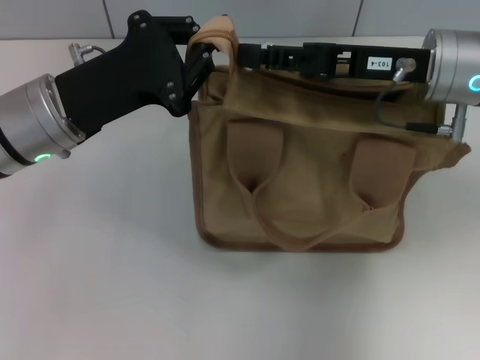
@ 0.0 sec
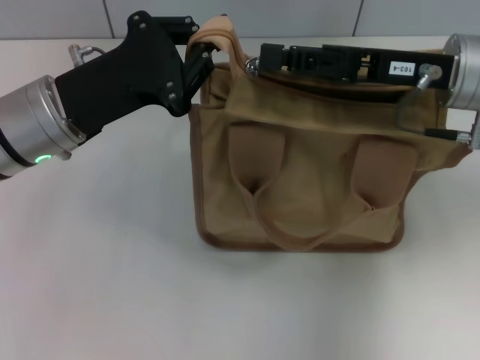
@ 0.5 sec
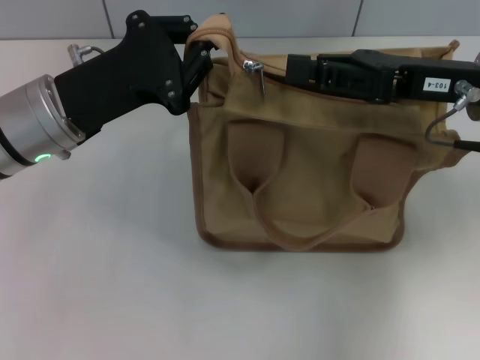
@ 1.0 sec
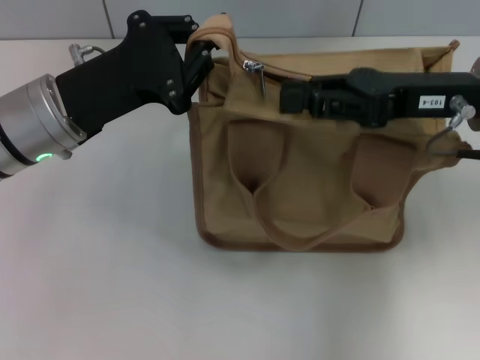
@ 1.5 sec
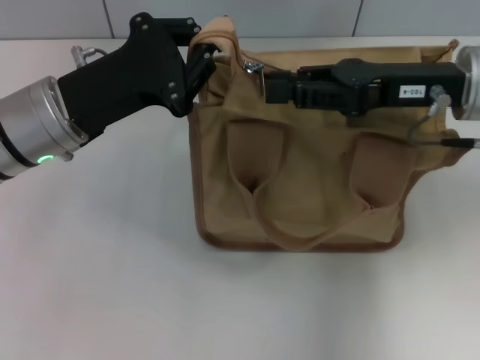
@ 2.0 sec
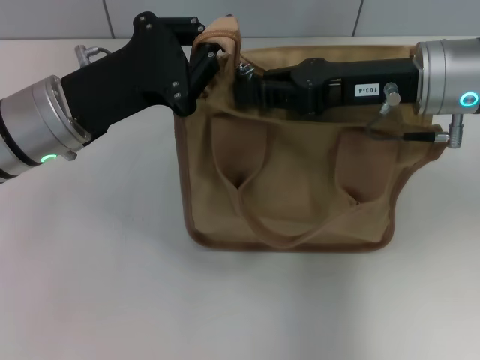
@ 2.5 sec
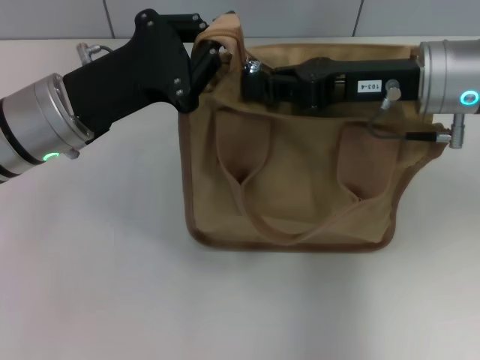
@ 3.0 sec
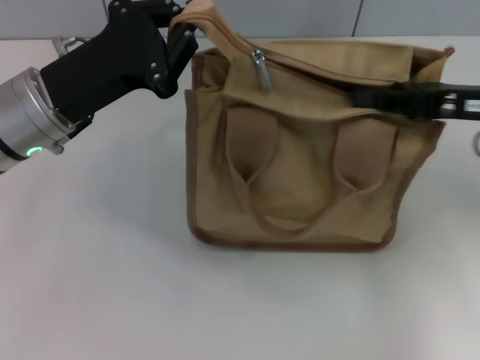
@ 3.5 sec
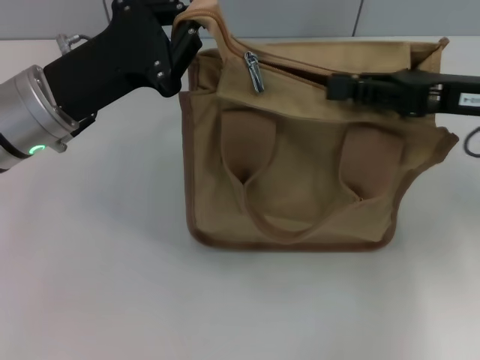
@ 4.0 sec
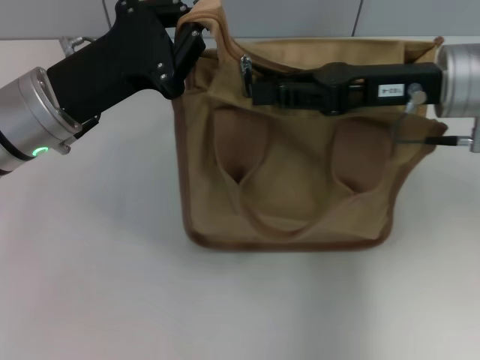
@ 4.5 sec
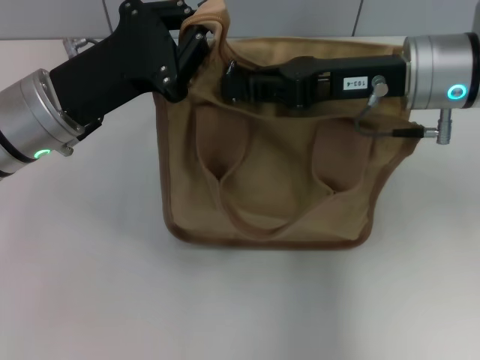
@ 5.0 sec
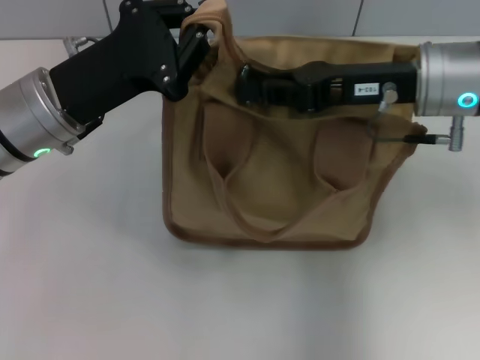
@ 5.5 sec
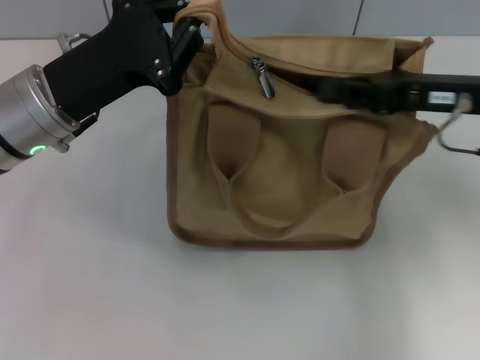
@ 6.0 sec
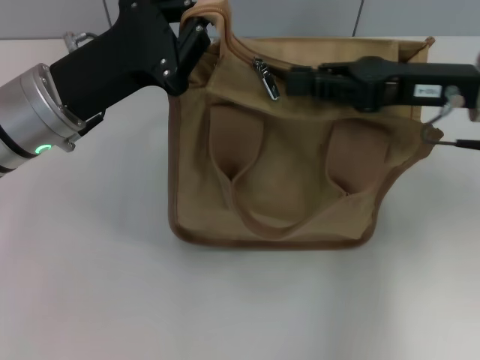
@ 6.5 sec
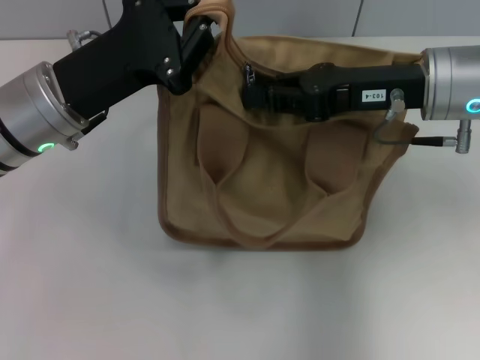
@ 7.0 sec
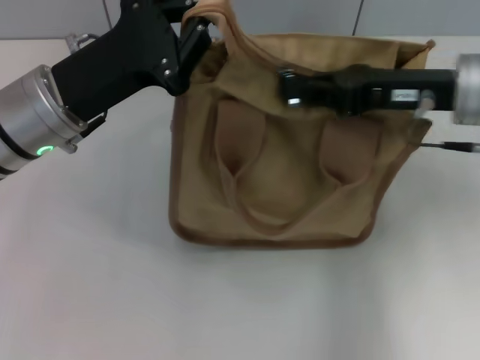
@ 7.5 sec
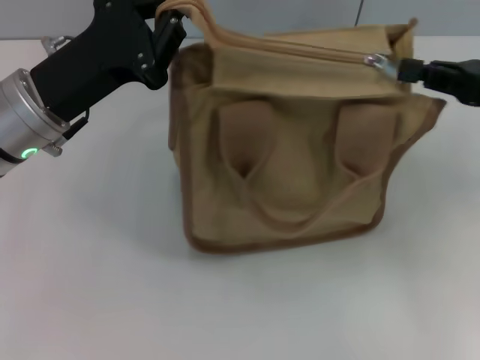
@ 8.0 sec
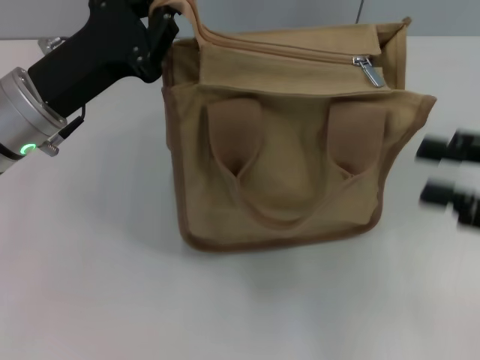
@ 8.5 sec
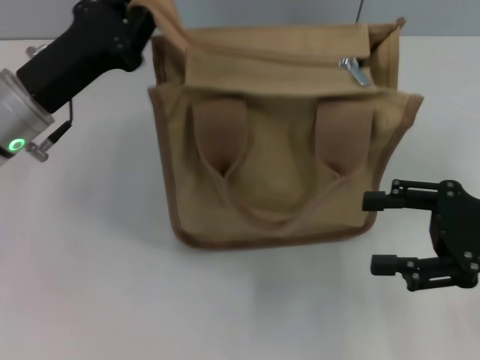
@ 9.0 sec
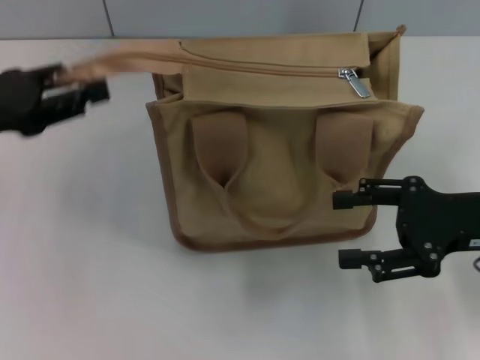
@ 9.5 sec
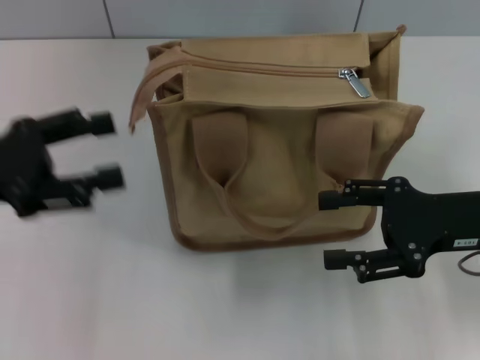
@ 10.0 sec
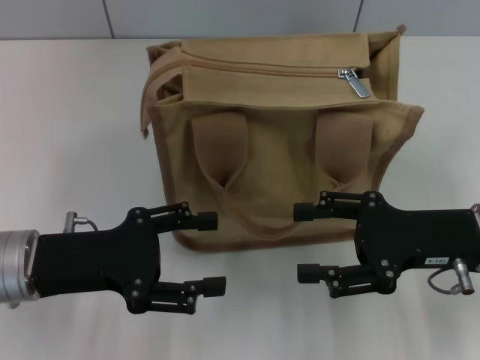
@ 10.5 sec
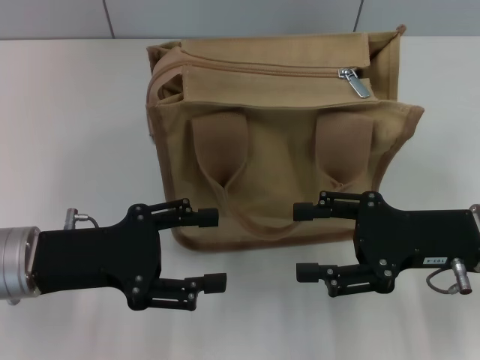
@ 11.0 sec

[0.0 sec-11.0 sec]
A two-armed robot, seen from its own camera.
Step, 0.0 sec to 8.0 sec: Pull up the zipper with your right hand.
Step, 8.5 sec to 9.5 sec: Grab the zipper with your left hand.
0.0 sec to 2.0 sec: The grippers make only small movements.
2.0 sec to 3.5 sec: The right gripper is displaced to the right by approximately 5 cm, and closes.
3.5 sec to 5.5 sec: The right gripper heads to the left, covering some 10 cm.
7.5 sec to 9.0 sec: The right gripper moves backward, to the right and downward, about 15 cm, and opens up.
9.0 sec to 11.0 sec: The left gripper travels backward by some 10 cm, and opens. The right gripper moves to the left, some 5 cm.
